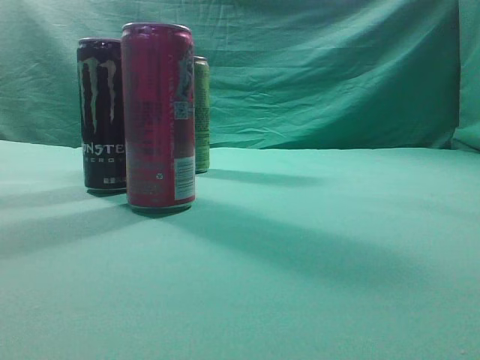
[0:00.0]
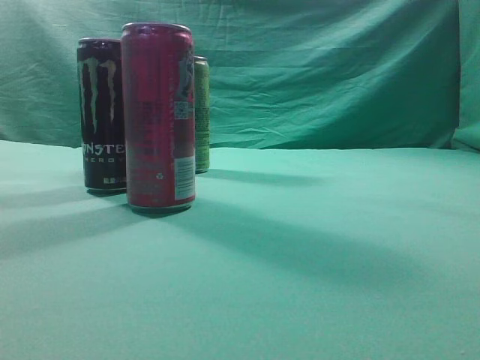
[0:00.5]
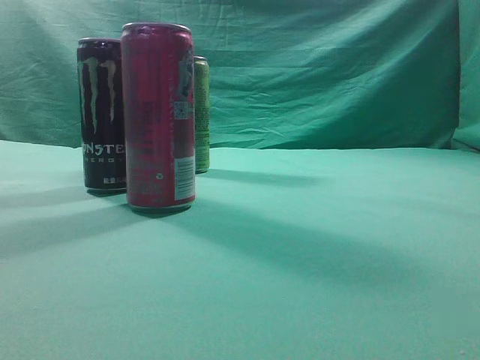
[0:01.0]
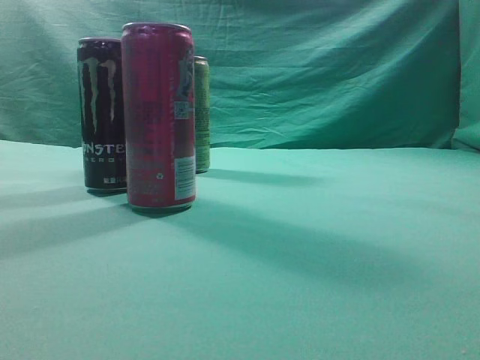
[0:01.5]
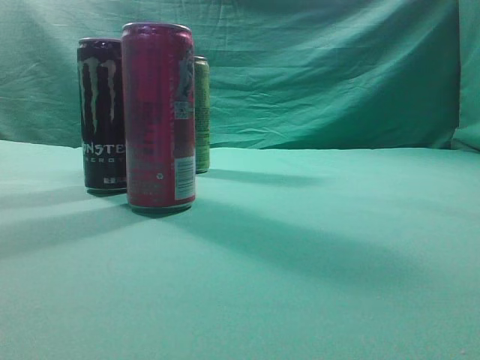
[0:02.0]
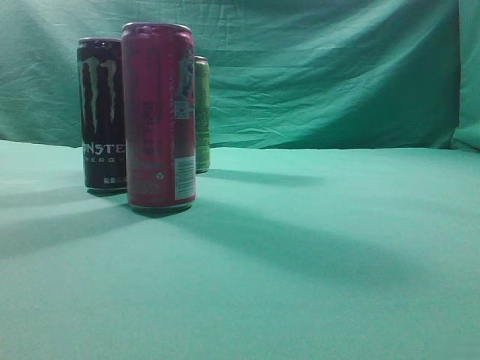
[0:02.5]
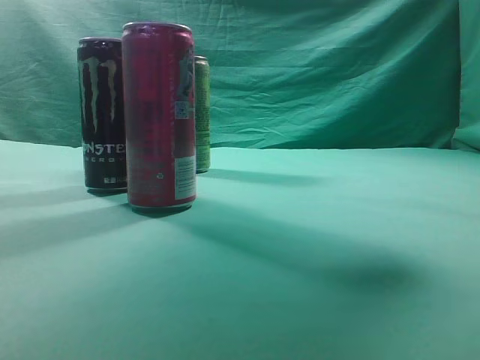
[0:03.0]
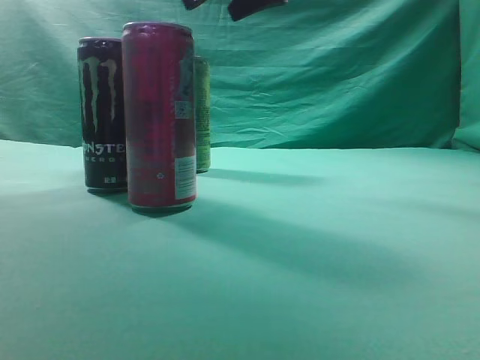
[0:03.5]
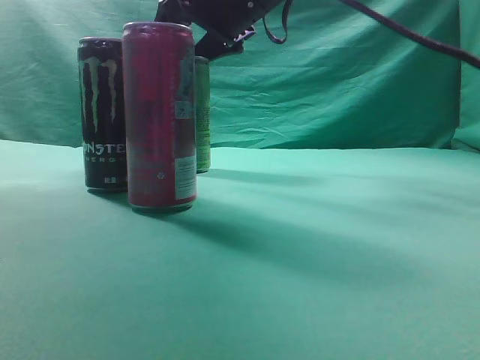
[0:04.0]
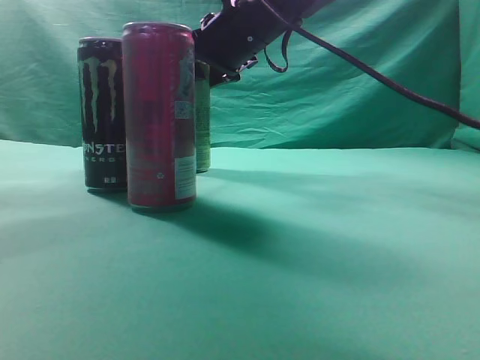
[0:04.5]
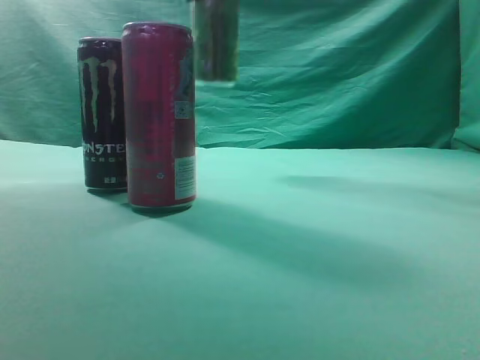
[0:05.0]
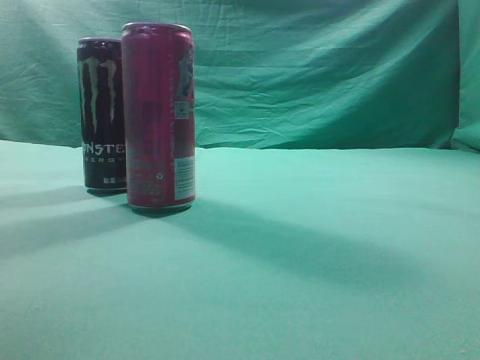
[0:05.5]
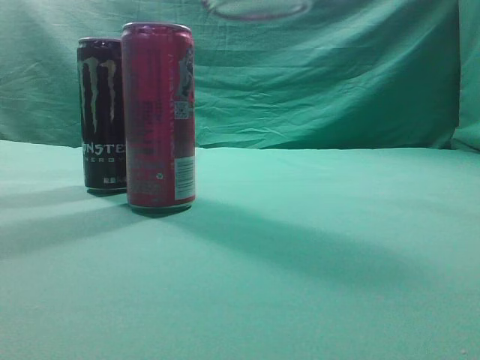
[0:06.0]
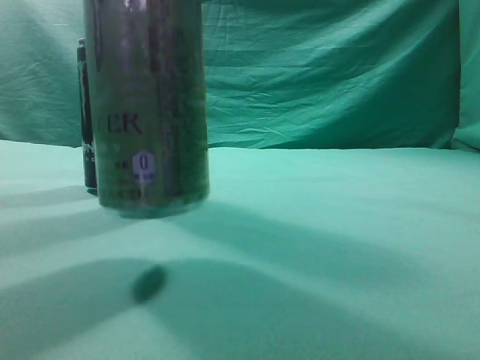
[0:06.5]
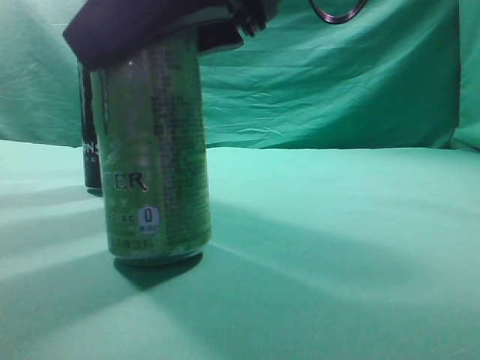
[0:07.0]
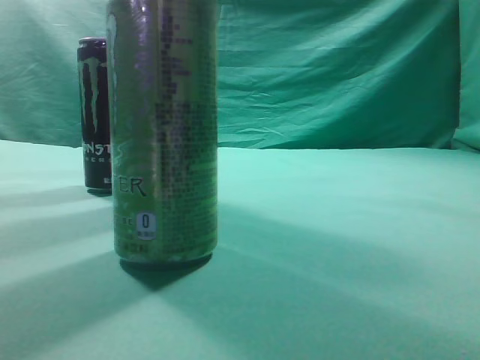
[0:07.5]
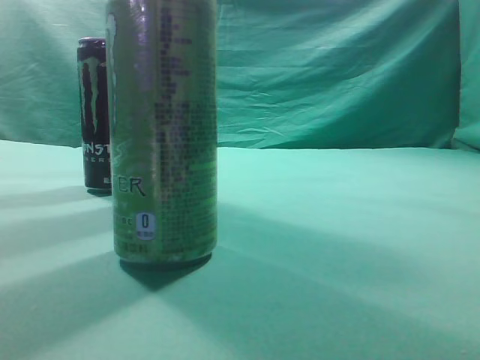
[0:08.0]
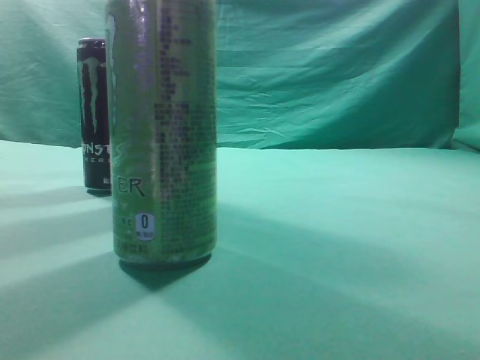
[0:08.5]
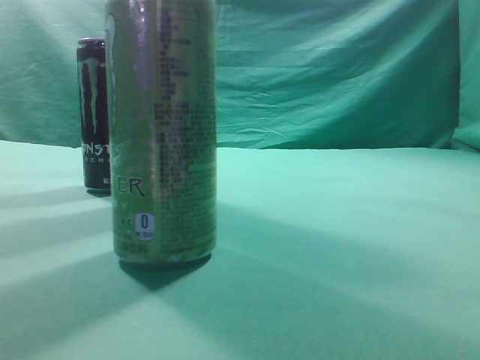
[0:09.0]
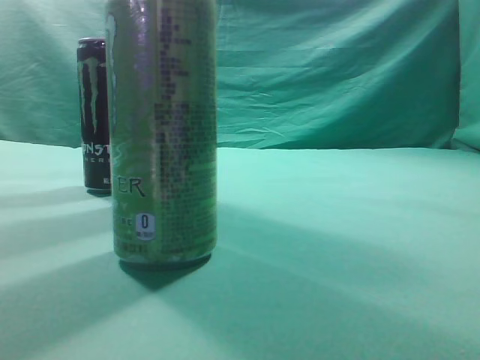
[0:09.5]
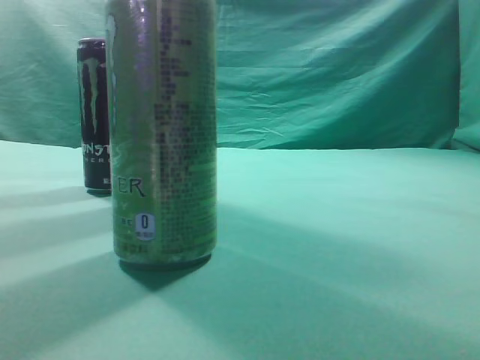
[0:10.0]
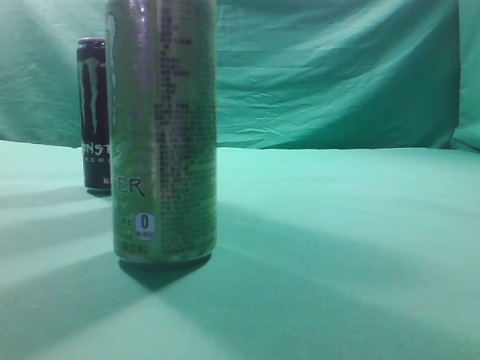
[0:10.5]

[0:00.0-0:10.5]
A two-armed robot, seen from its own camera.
Task of the whole recording: move one drink among three beverages.
Step, 0:00.0 to 0:04.5: Grasp the beverage bottle placed at the back of the desk.
Step, 0:05.0 to 0:07.5: Place the beverage bottle to the front of the table.
0:02.0 to 0:04.0: The right gripper is displaced forward and to the left by some 50 cm, and opens its fingers.
0:04.0 to 0:06.5: The right gripper travels backward by about 25 cm.
0:06.5 to 0:08.5: The right gripper is displaced to the right, upward and backward by some 25 cm, and closes.
